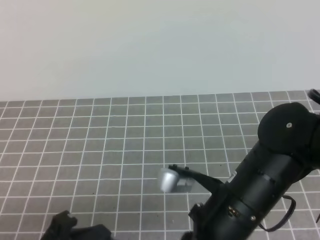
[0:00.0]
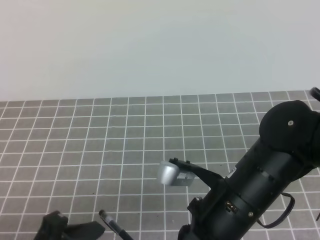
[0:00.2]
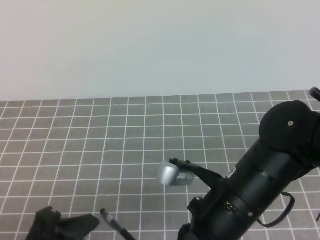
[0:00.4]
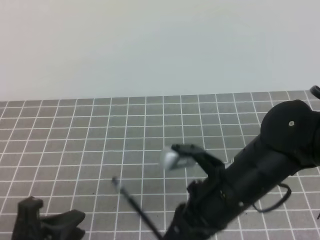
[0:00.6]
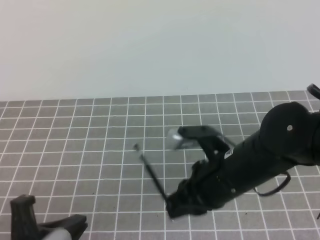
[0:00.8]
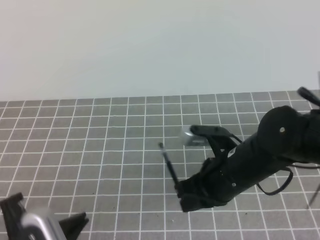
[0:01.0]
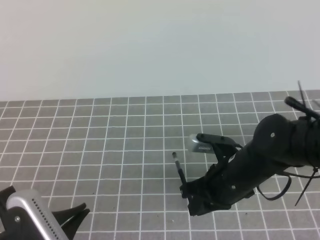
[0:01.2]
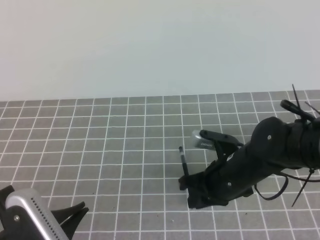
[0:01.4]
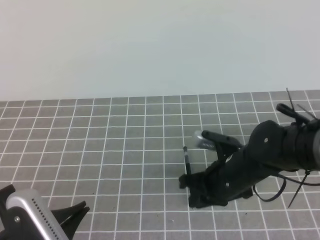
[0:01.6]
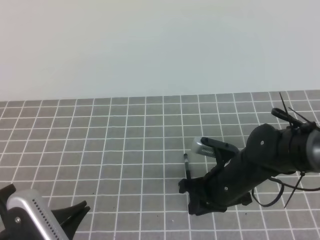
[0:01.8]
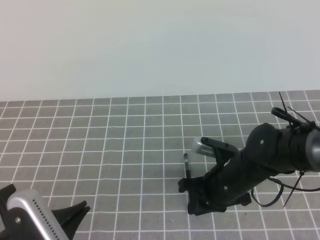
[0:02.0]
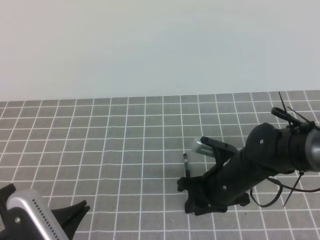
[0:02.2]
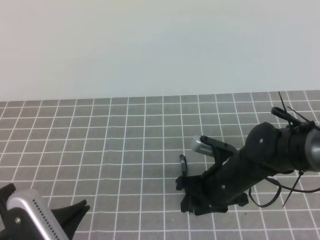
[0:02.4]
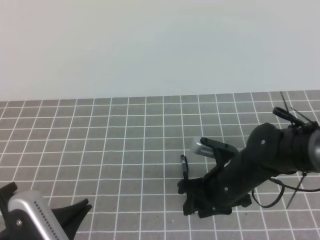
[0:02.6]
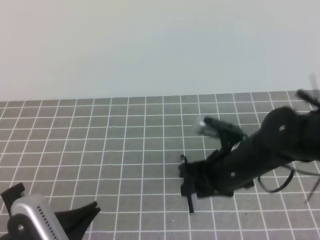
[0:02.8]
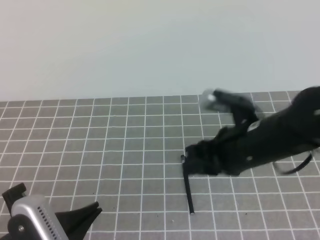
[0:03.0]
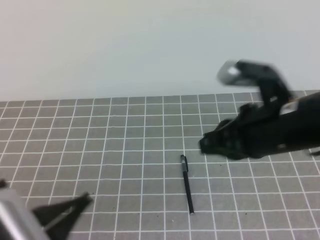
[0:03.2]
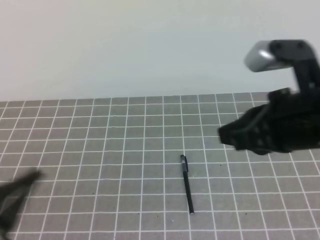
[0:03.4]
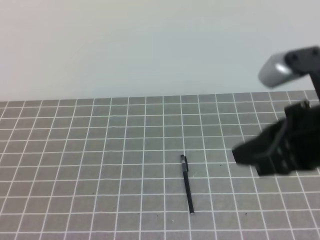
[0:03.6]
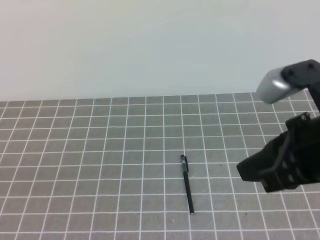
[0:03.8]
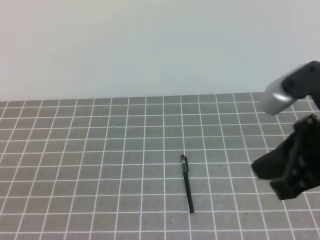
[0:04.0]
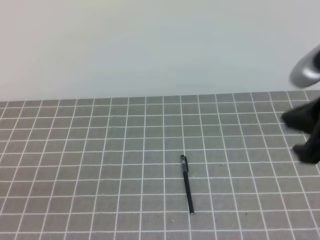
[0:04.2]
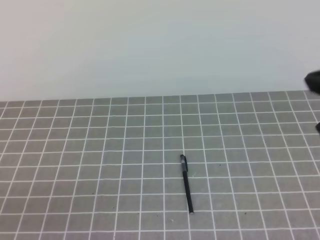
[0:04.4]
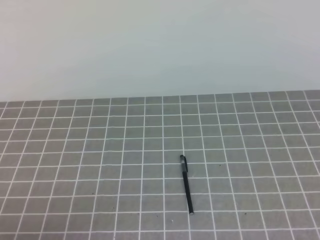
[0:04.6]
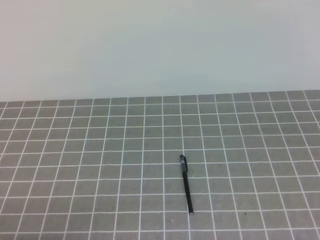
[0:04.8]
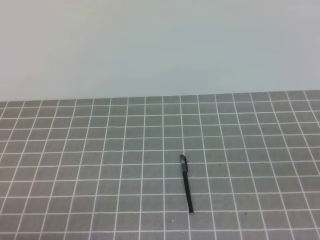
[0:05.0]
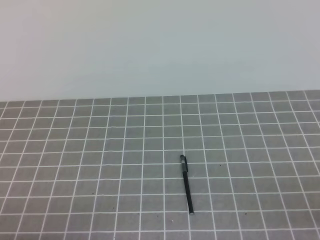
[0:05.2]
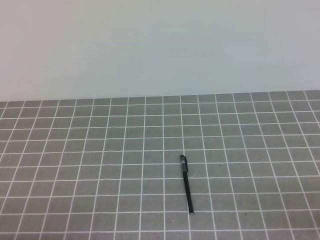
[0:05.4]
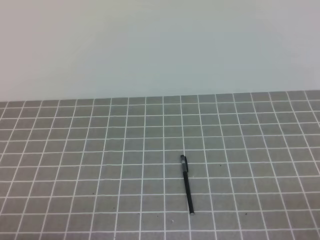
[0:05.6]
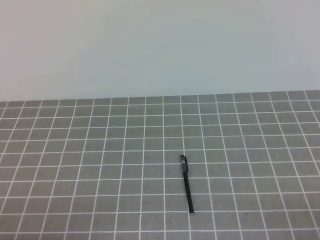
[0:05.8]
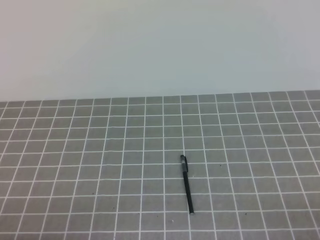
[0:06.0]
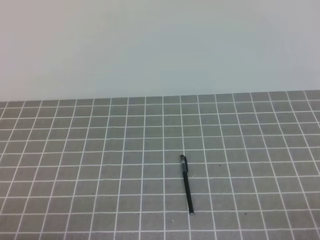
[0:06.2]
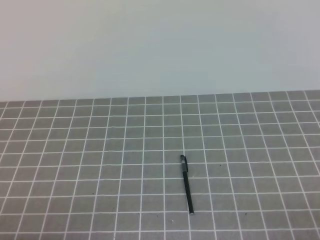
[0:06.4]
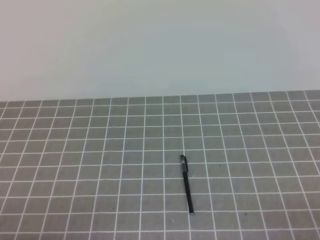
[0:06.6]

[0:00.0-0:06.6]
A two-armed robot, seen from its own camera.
Task of the whole recording: on the grey tablecloth, hold the pen cap in one hand and the pen in the other, then cover the pen cap.
Step, 0:00.0 to 0:06.6: Put the cap on the pen.
0:00.0 to 0:01.6: The right gripper shifts about 15 cm forward and downward.
0:01.6 to 0:03.2: The right gripper shifts about 15 cm upward, and opens, then closes once more.
0:03.2 to 0:05.0: The left gripper is displaced downward and to the left by about 10 cm. Meanwhile the right gripper moves to the right and backward, some 20 cm.
